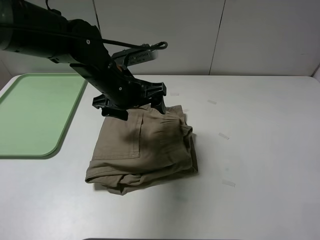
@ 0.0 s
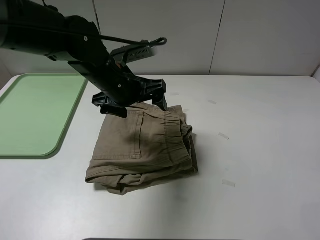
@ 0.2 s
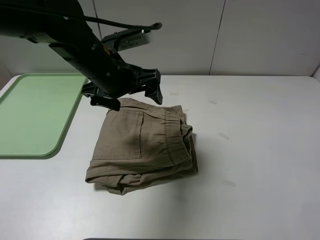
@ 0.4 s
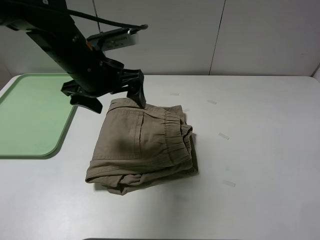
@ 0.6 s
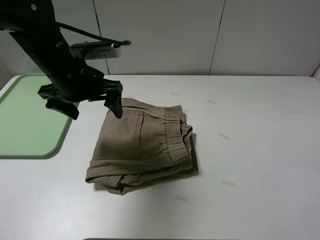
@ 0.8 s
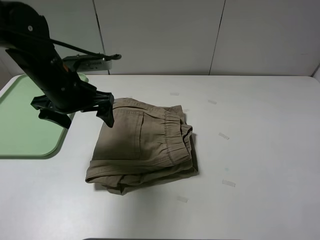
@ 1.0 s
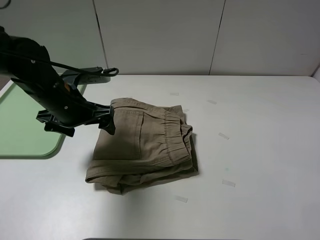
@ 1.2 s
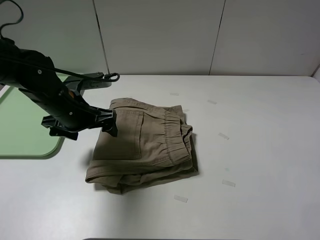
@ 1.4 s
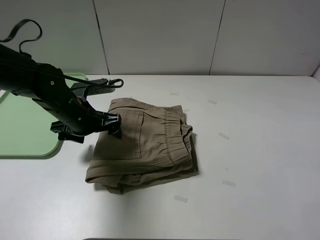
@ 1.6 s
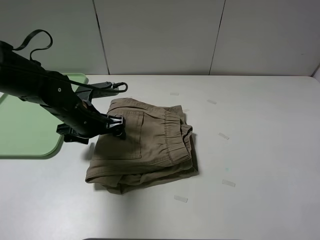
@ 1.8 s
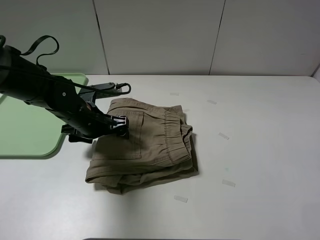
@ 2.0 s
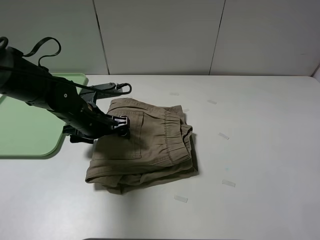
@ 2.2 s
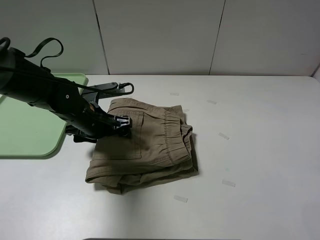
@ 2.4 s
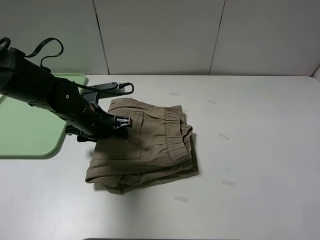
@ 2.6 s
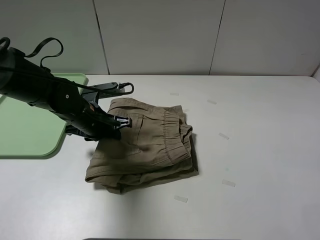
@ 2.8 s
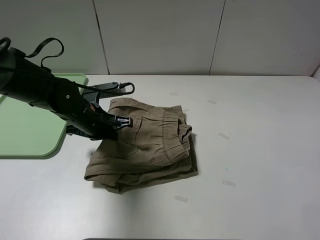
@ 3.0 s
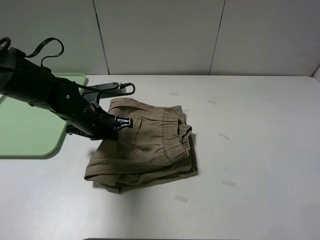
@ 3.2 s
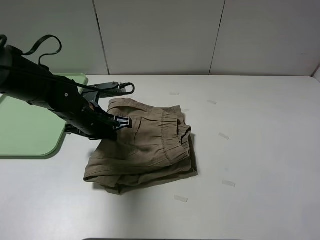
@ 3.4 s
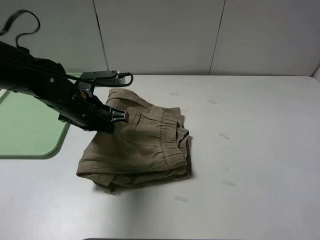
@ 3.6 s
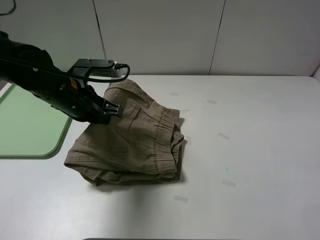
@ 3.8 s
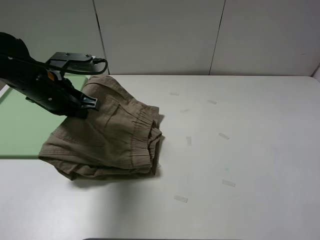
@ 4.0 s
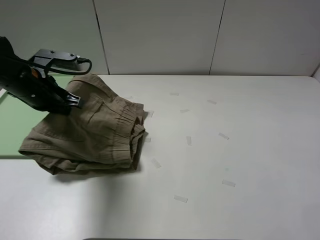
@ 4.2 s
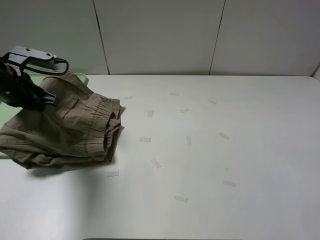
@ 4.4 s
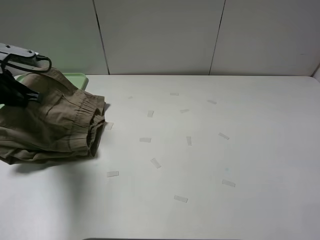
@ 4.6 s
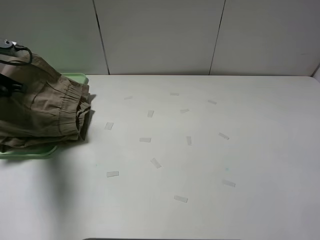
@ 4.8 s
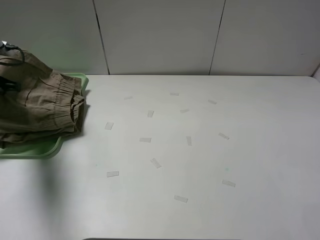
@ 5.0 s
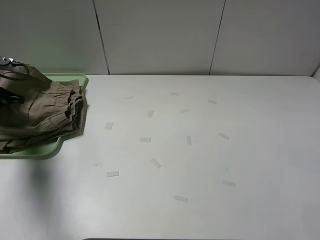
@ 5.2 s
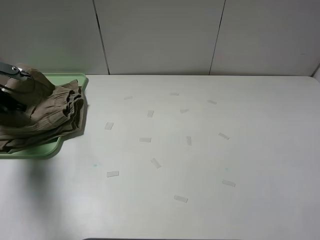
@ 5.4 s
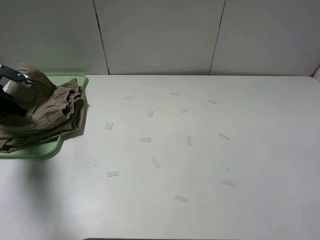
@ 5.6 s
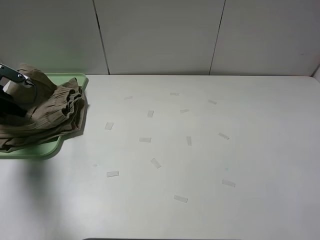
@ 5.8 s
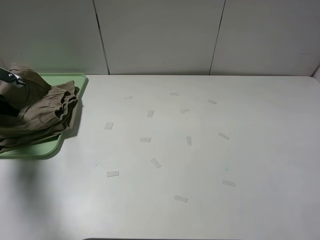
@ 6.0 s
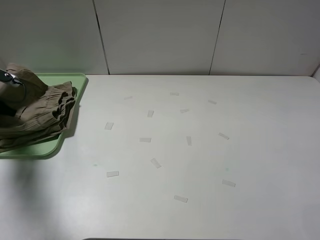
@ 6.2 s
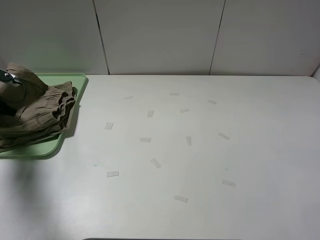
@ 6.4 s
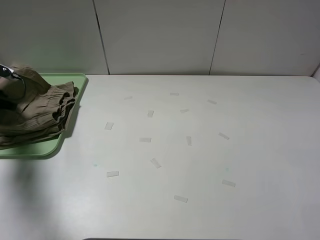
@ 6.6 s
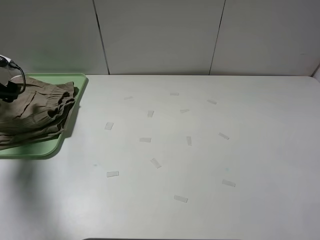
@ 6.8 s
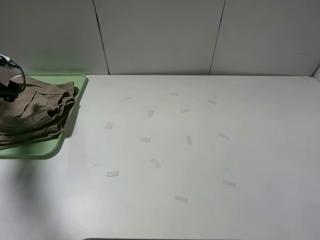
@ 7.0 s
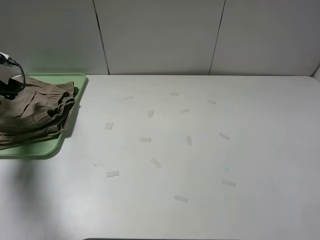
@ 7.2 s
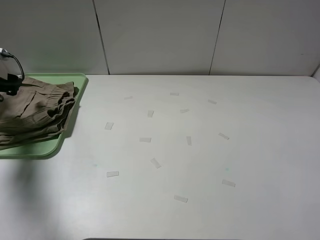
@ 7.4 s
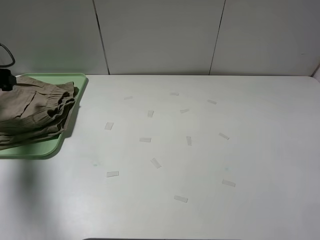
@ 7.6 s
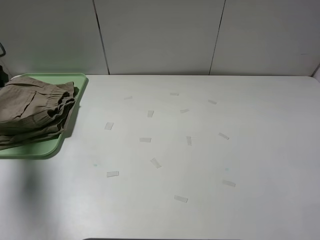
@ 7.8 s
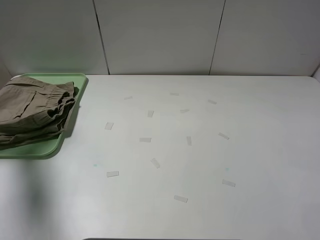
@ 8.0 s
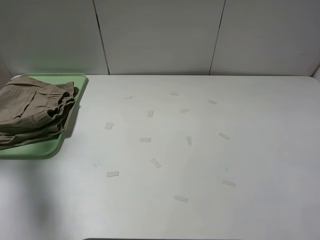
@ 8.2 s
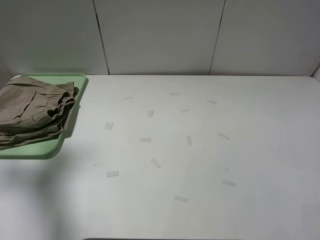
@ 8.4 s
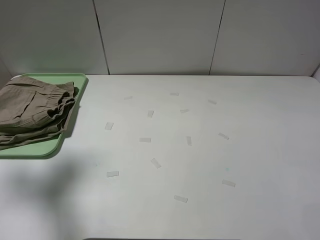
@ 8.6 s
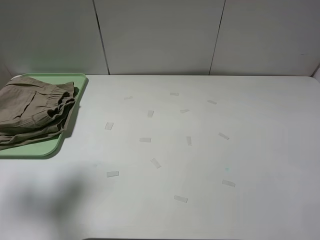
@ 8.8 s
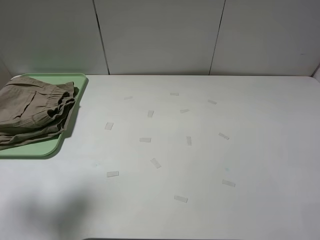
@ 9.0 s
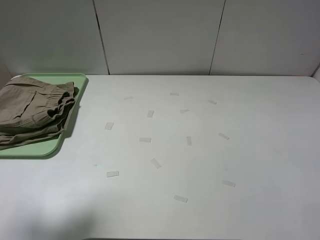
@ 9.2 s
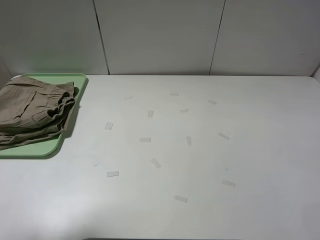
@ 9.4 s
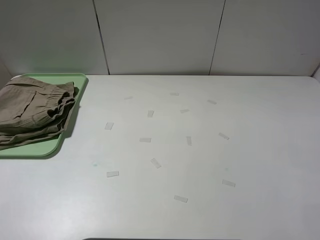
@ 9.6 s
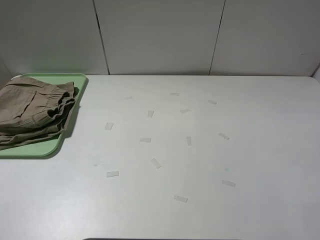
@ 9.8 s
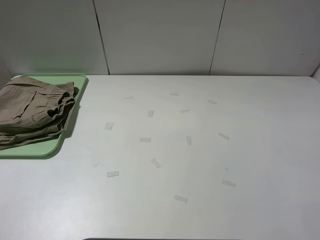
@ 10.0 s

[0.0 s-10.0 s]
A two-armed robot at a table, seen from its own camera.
Task of the whole recording: fold the khaki jeans in half with two grippers, then fold them in half again, and use the left claw to place the folded fold khaki jeans on the tray.
Step, 0.2 to 3.0 s: Grasp the khaki trousers with the left gripper.
Step, 3.2 to 6.6 s: Place the folded khaki trousers on the green tray with the left gripper.
0.0 to 1.4 s: The left gripper goes about 10 cm to the left.
1.4 to 2.8 s: The left gripper ends up approximately 5 cm from where it was, and closes its fingers.
2.8 to 4.2 s: The left gripper moves to the left and upward, about 15 cm.
4.2 to 5.8 s: The left gripper goes approximately 15 cm to the left.
5.8 to 7.2 s: The left gripper opens up.
7.2 to 8.6 s: The left gripper moves upward, backward and to the right, approximately 20 cm.
8.6 to 10.0 s: The left gripper is displaced backward by some 20 cm.

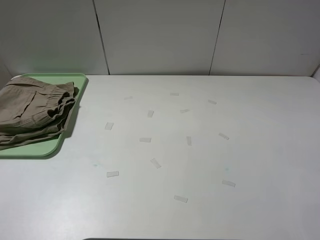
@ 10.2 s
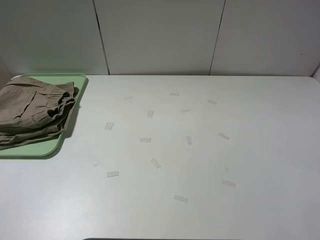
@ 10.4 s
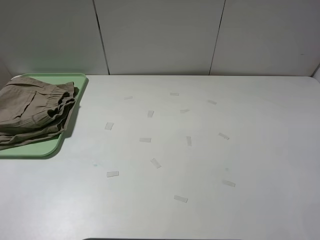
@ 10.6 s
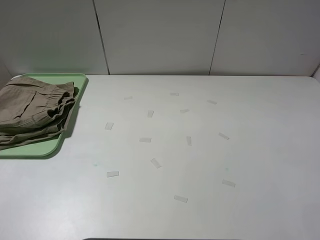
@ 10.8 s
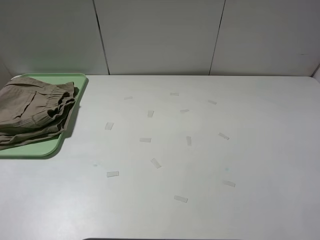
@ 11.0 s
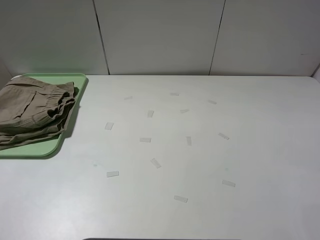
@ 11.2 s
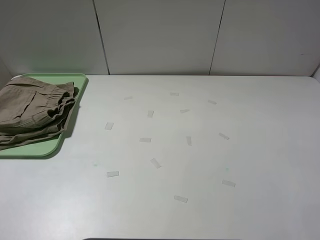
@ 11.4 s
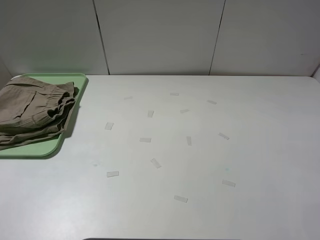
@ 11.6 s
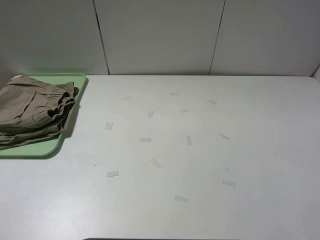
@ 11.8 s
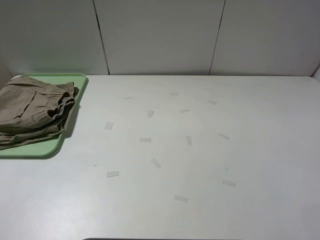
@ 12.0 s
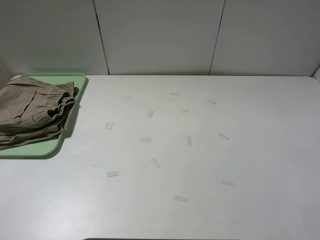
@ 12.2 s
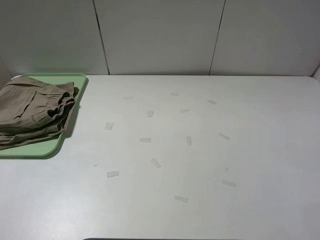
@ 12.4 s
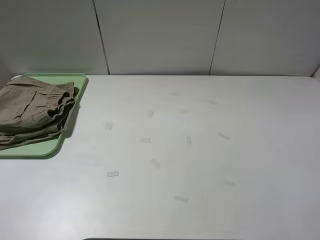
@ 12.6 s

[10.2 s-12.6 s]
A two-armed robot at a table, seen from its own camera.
Task of the whole recording: fold the khaki jeans in half with two grippers, then fold them in half again, and use the left claw to place the folded fold khaki jeans on the tray.
11.4 to 12.6 s: Neither gripper changes place.
